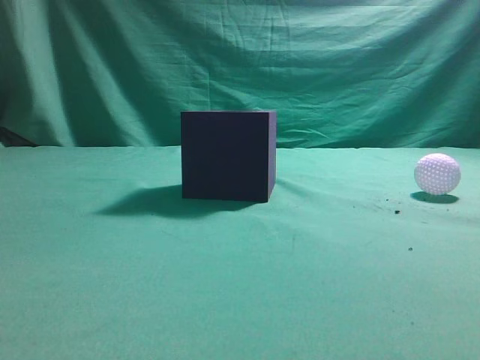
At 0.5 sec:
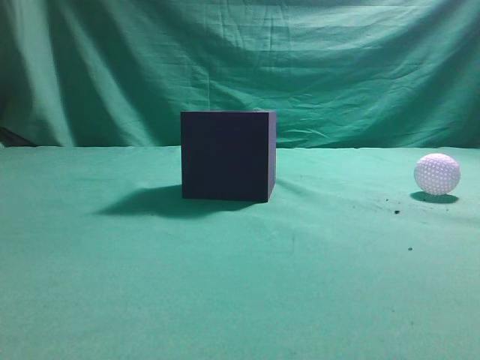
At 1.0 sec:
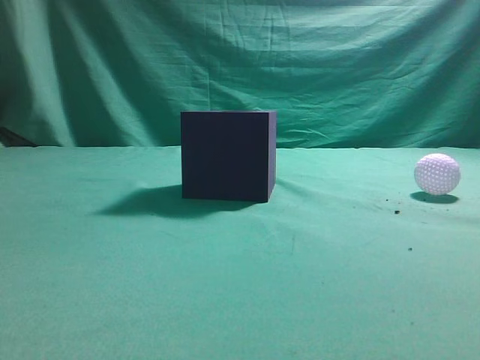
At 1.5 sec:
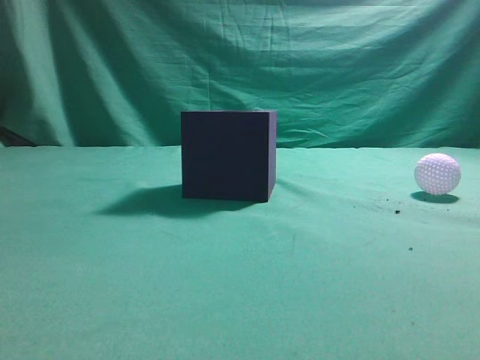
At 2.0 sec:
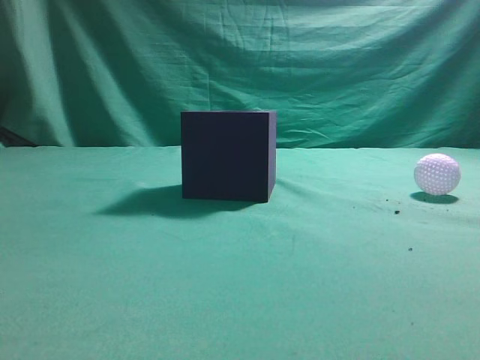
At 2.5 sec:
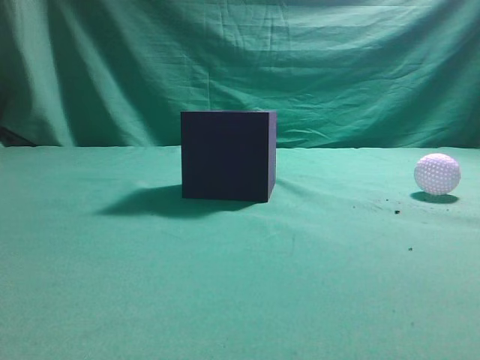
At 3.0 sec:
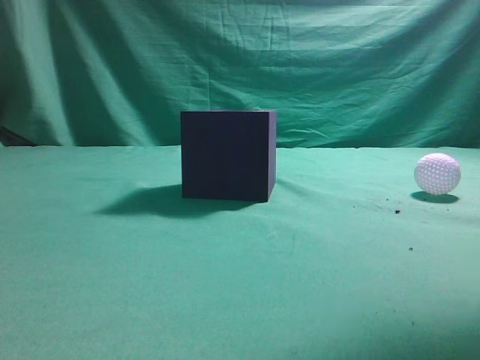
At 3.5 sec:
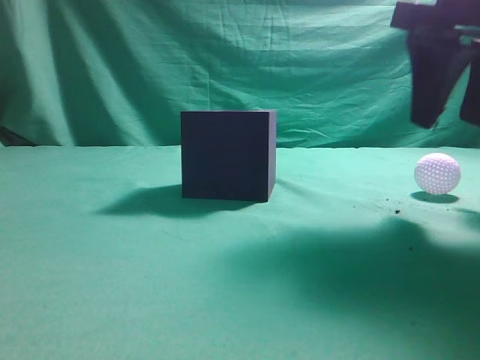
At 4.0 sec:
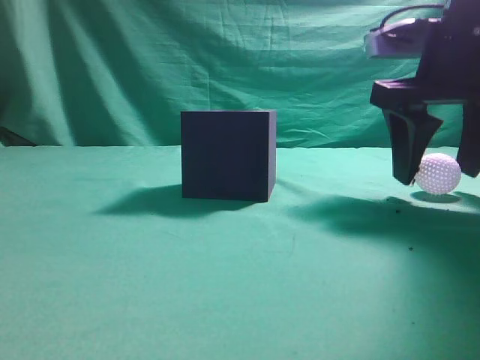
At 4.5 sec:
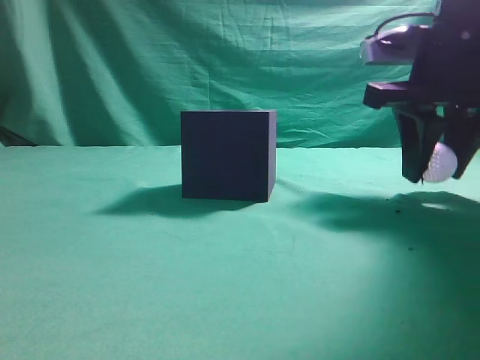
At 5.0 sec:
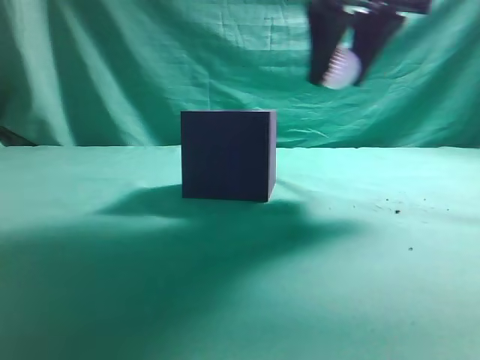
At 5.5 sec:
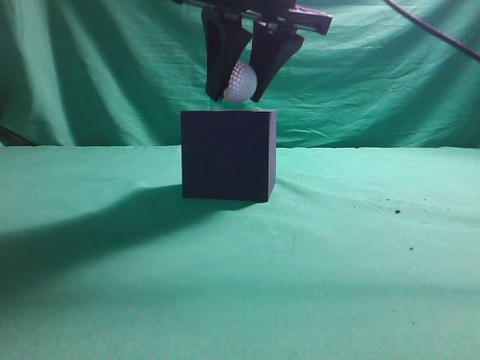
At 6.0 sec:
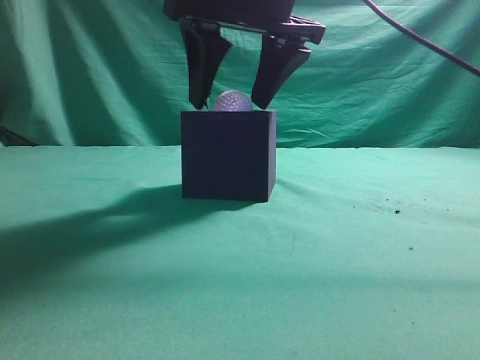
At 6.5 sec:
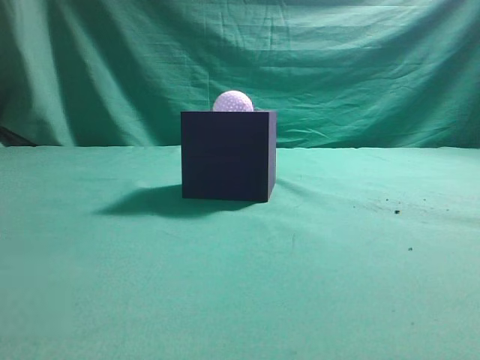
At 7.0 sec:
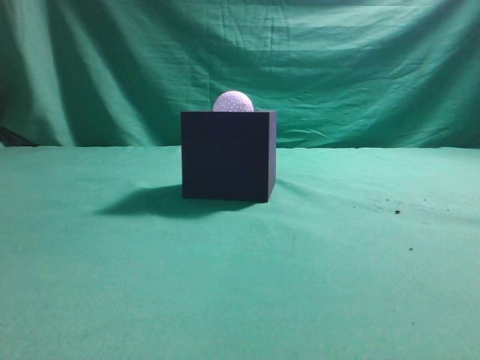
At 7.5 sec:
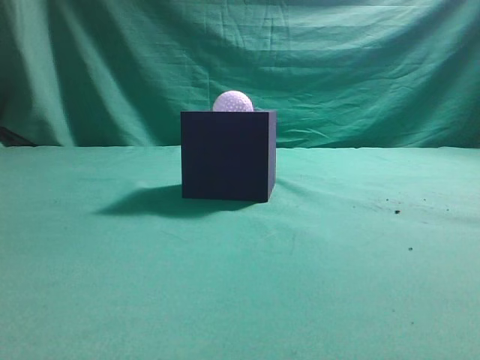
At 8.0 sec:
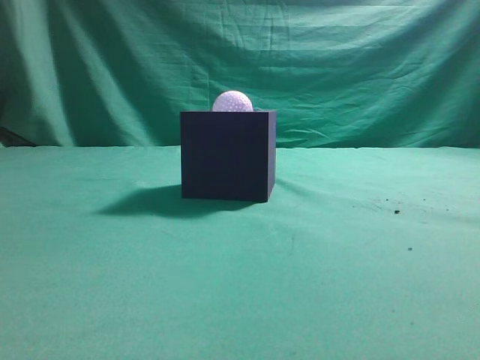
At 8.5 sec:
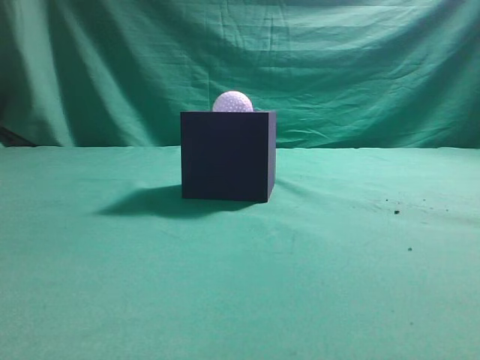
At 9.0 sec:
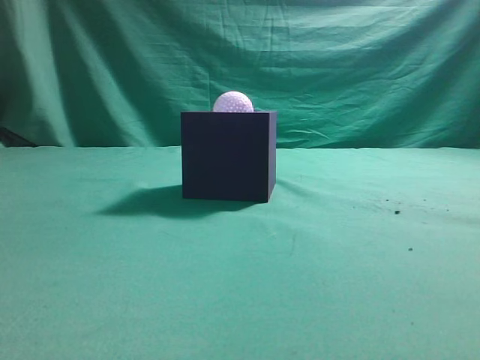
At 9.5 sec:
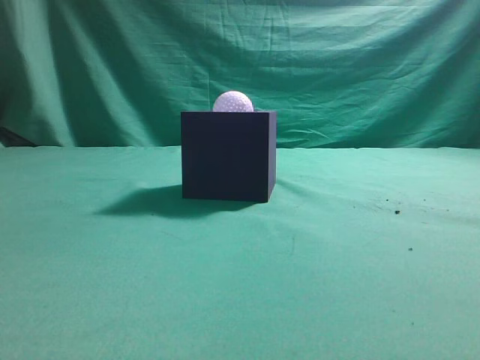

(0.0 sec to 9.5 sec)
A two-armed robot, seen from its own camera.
Task of the whole recording: Pick up the ball and place it in the circular groove above the cube.
Step, 0.0 sec - 4.5 sec: Grasp the sphere on the table.
Step, 5.0 sec - 6.0 sec: Place the sphere into the sphere-shaped recess.
2.0 sec - 4.0 sec: The right gripper is displaced forward by some 25 cm, and opens its fingers.
4.0 sec - 5.5 sec: The right gripper moves to the left and upward, roughly 15 cm, and closes its fingers.
5.5 sec - 7.5 sec: The right gripper shifts roughly 30 cm backward, to the right and upward, and closes.
